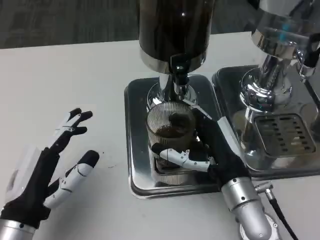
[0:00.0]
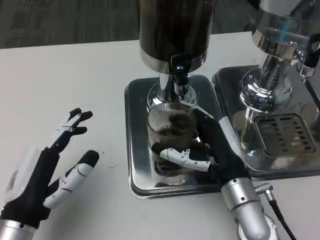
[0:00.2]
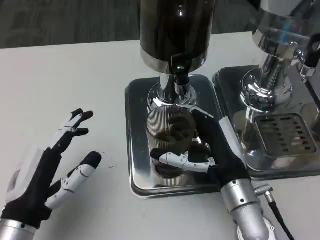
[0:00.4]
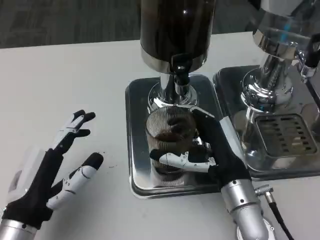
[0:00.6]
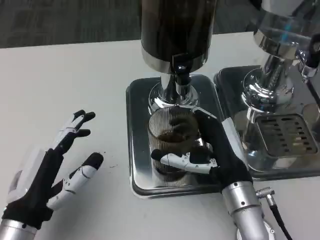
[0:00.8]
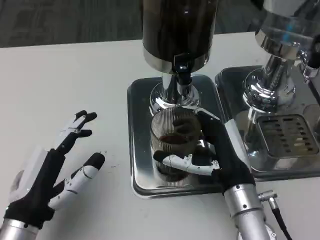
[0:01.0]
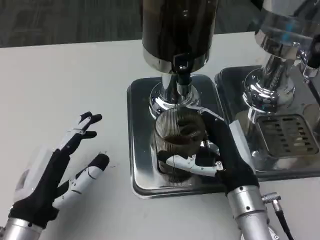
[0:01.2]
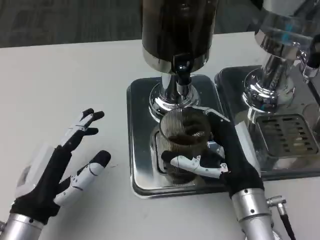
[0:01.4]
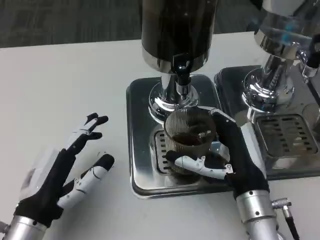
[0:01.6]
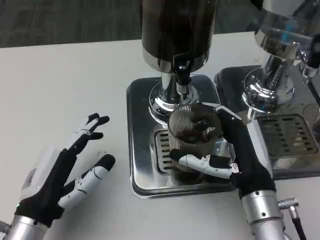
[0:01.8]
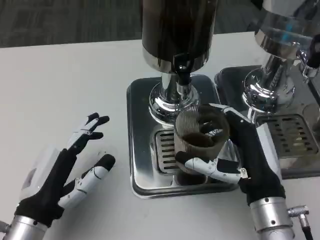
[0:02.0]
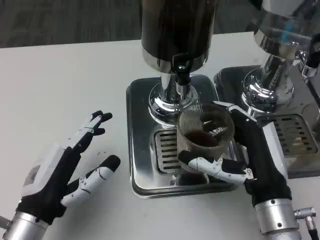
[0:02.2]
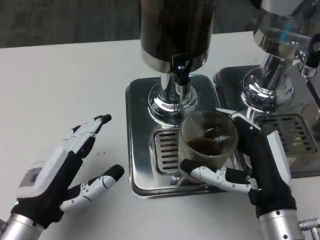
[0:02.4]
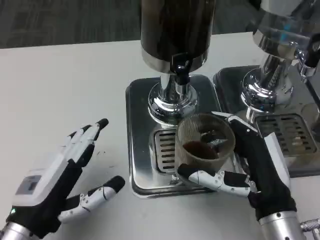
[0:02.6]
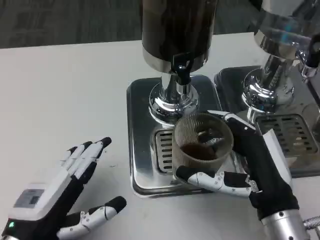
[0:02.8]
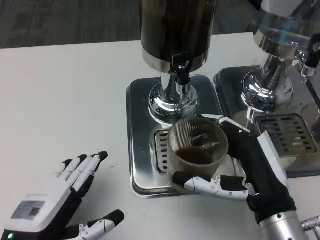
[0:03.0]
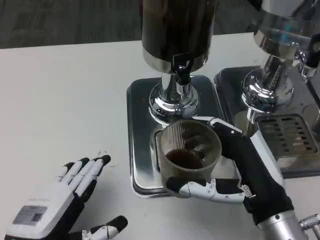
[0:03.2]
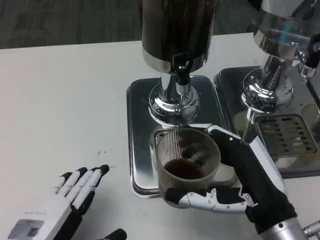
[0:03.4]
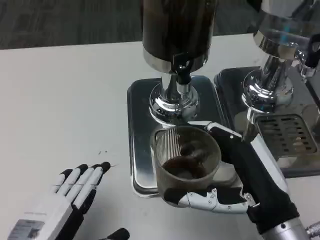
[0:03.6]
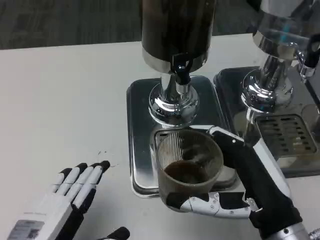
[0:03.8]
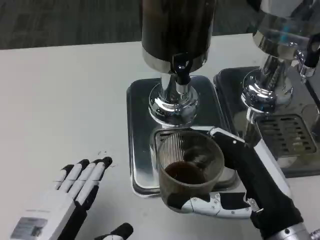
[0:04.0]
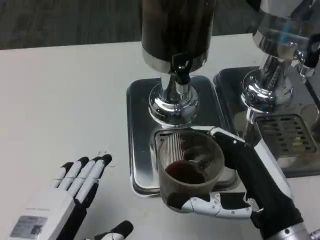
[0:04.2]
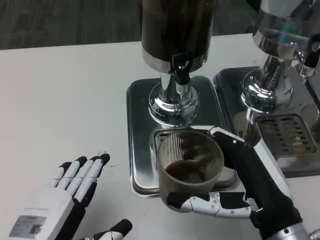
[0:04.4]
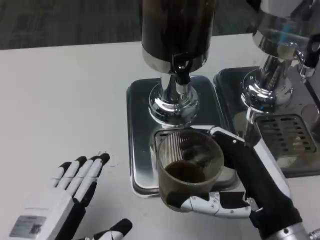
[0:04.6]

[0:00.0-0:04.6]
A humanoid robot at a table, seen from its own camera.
Task of the whole recording: Grasp the cup under the faucet to collect the drink, then remove the cup.
0:01.6 to 0:03.0: The right hand shifts by approximately 5 cm. Meanwhile the left hand ends up roughly 5 cm from where it was.

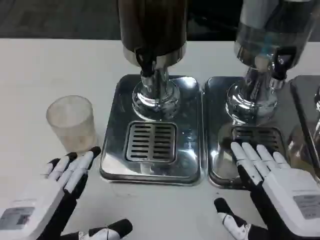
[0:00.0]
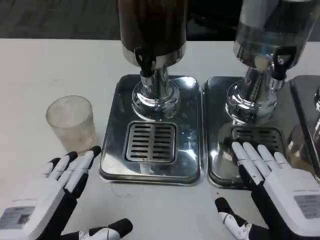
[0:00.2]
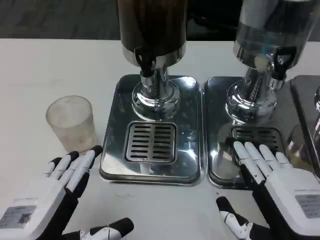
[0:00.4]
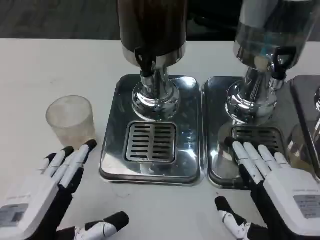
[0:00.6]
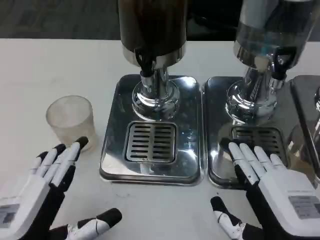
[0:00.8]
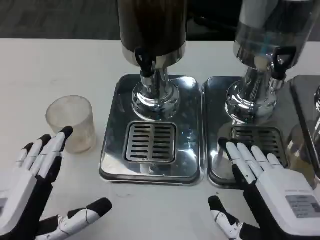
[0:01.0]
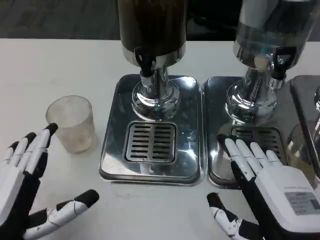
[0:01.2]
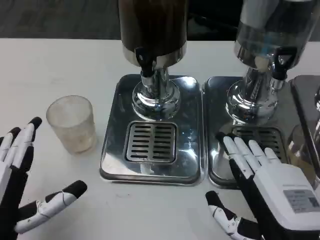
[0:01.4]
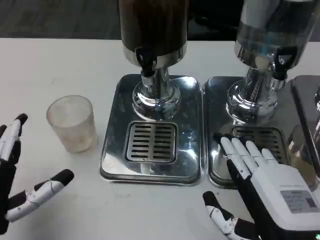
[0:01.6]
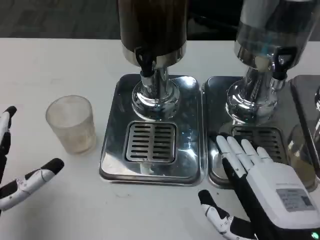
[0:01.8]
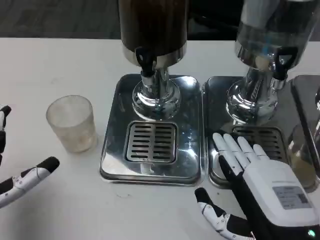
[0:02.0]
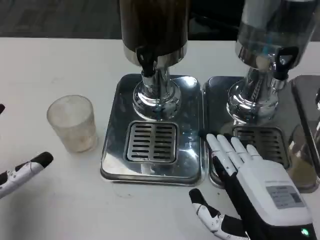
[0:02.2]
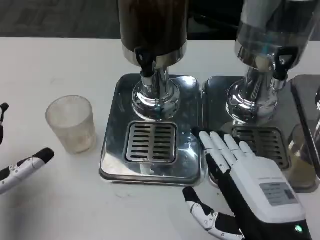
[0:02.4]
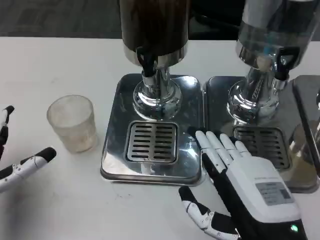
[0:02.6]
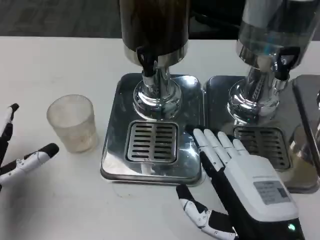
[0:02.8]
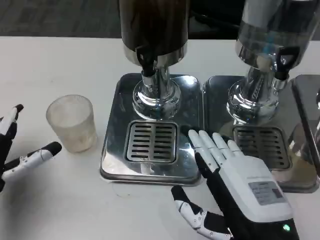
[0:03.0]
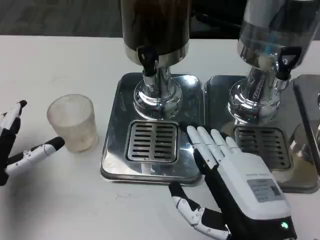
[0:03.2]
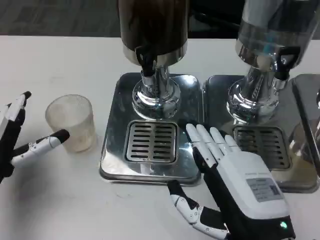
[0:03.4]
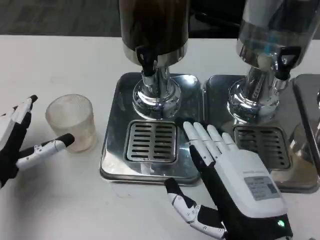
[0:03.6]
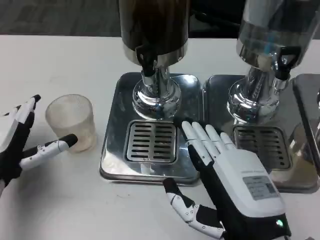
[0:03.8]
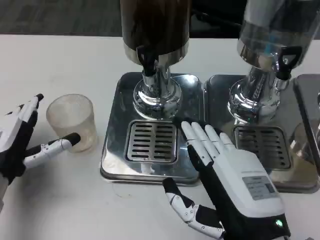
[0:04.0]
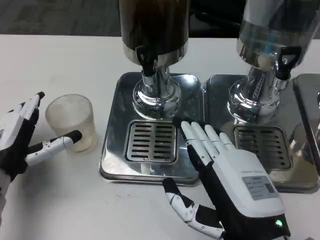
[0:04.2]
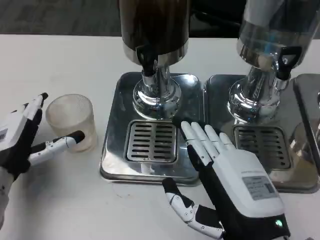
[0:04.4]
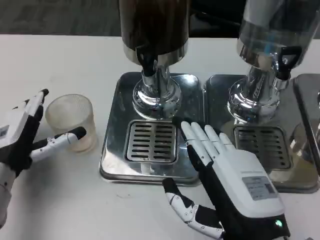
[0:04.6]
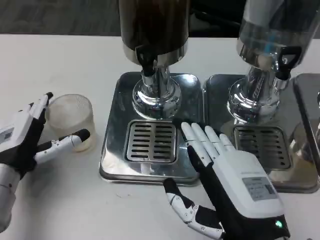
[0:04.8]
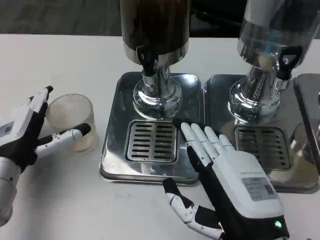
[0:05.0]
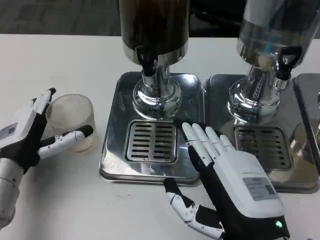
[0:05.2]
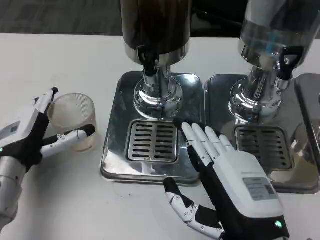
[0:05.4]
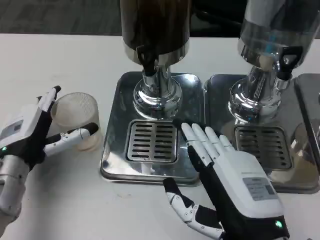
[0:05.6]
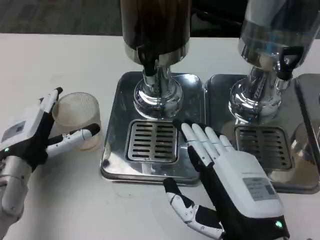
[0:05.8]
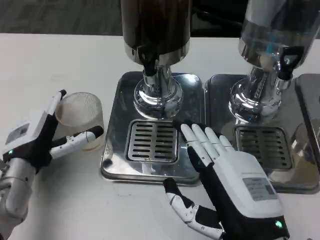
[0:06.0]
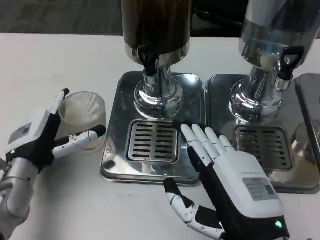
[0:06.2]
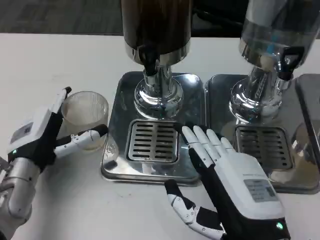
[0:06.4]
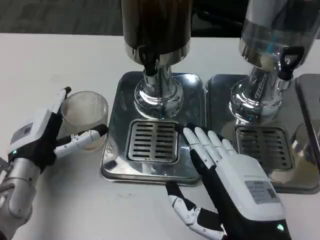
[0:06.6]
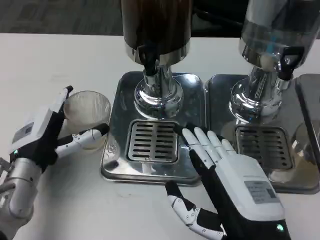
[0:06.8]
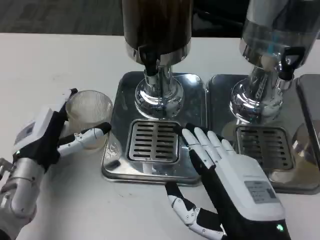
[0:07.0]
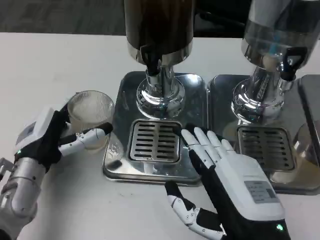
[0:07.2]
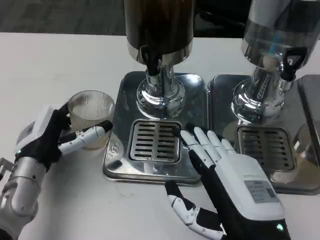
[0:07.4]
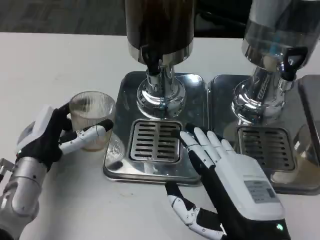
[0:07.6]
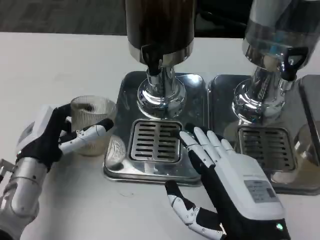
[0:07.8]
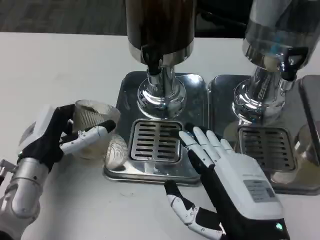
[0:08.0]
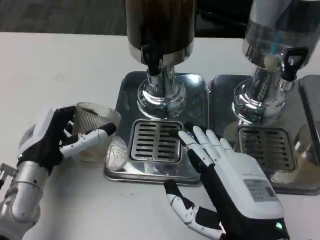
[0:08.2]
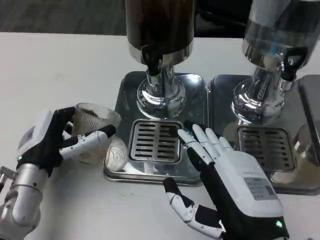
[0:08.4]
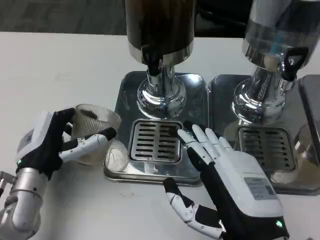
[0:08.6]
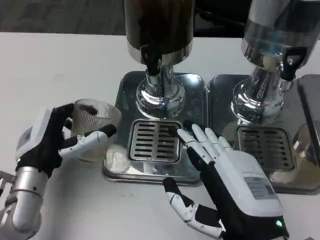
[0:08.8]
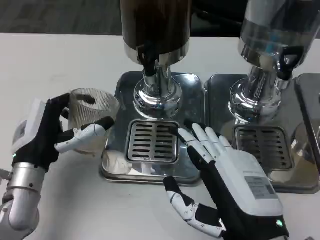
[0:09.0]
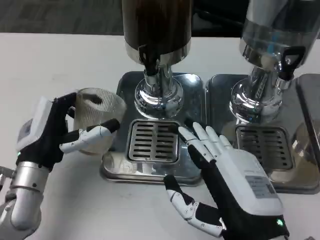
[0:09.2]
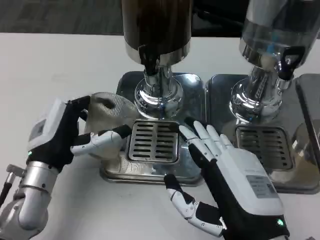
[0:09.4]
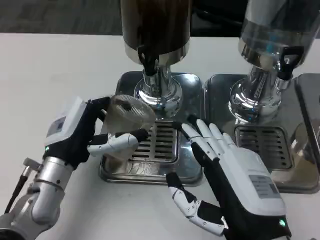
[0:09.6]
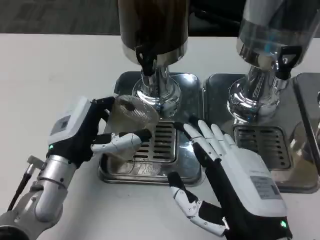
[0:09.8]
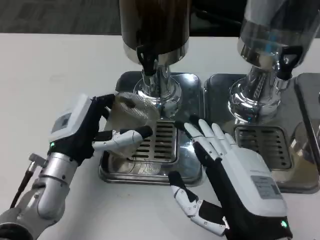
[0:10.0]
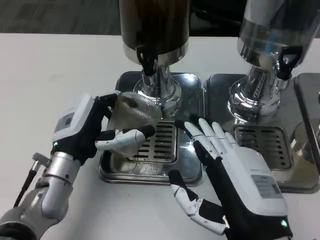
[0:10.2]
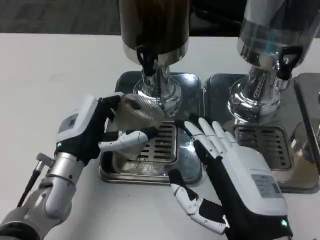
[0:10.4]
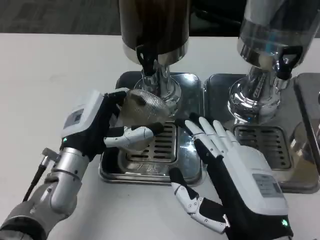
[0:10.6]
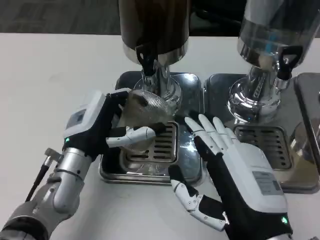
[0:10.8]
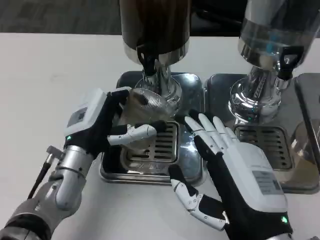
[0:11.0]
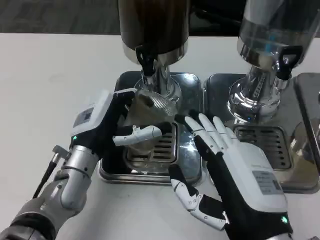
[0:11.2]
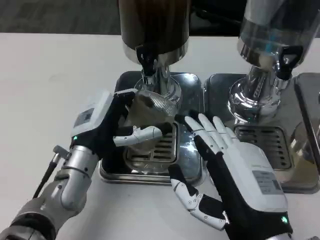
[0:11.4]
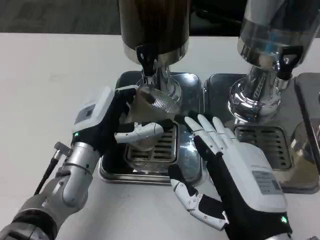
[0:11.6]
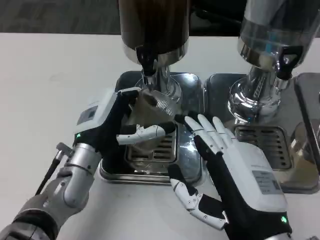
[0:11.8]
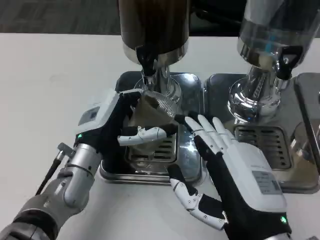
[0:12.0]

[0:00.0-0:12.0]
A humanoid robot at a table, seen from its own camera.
Task of the whole recording: Grasp the cup under the faucet to collect the drink, then remove the cup.
0:00.0 to 0:01.6: The left hand changes place by about 5 cm.
0:01.6 to 0:03.0: The left hand travels forward by about 10 cm.
0:03.0 to 0:04.4: The hands stay close to where they were, moving slightly.
0:04.4 to 0:06.0: There are only small adjustments of the hands.
0:10.4 to 0:12.0: The hands move only a little.

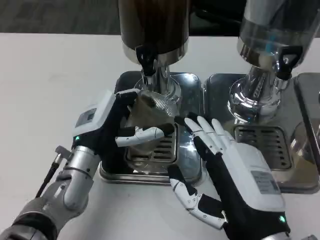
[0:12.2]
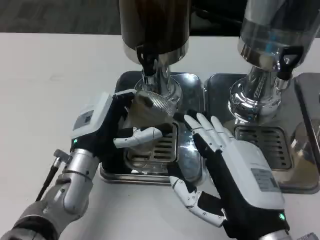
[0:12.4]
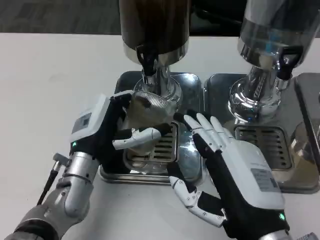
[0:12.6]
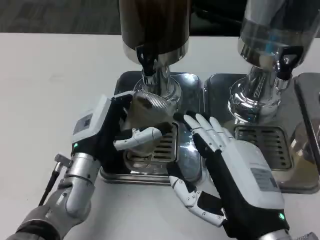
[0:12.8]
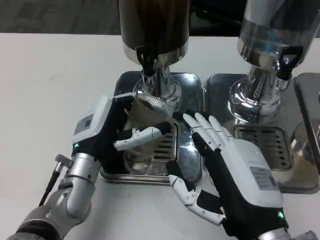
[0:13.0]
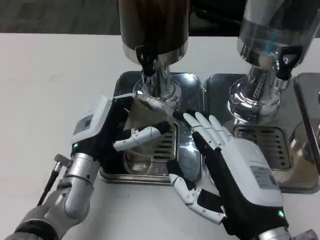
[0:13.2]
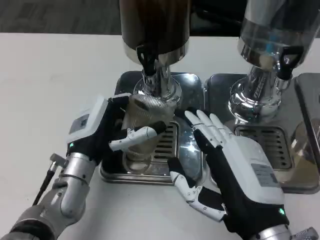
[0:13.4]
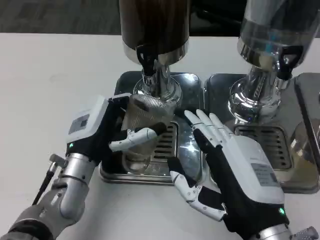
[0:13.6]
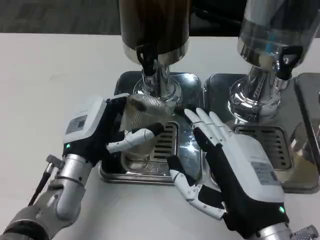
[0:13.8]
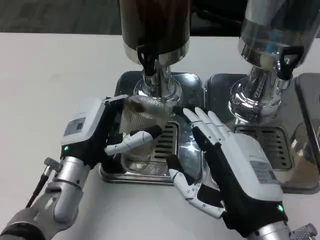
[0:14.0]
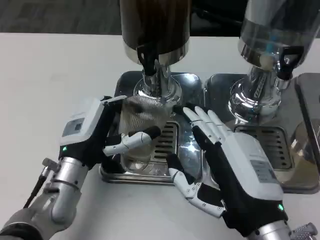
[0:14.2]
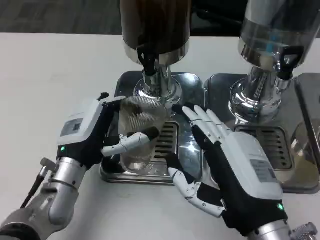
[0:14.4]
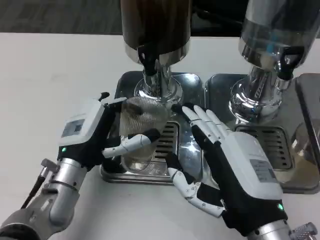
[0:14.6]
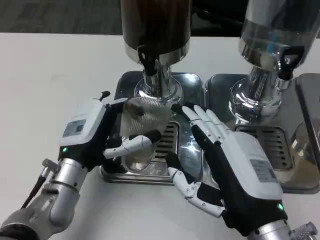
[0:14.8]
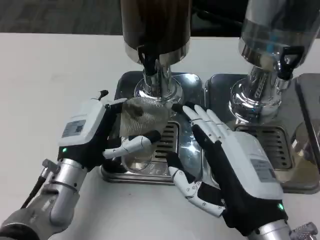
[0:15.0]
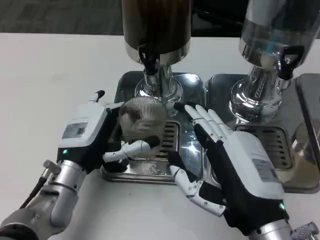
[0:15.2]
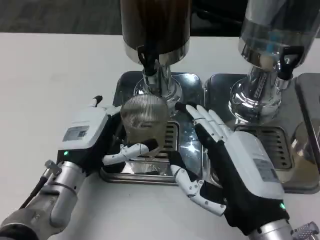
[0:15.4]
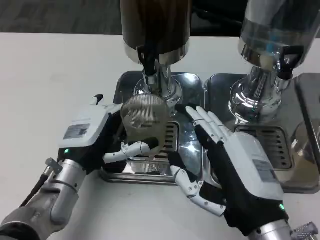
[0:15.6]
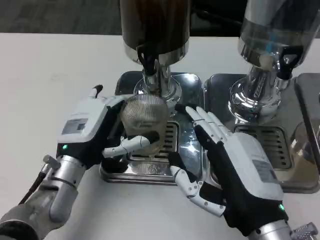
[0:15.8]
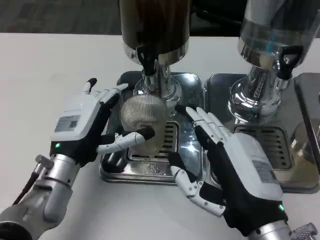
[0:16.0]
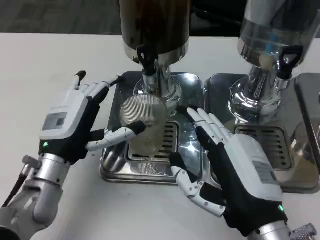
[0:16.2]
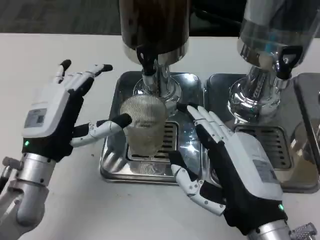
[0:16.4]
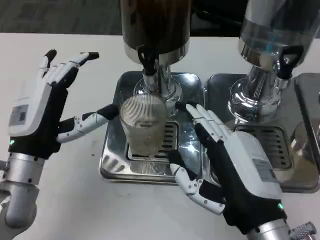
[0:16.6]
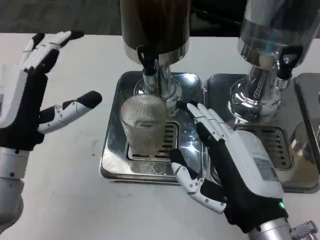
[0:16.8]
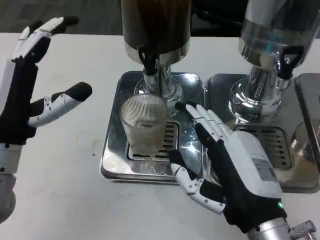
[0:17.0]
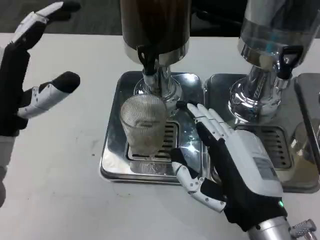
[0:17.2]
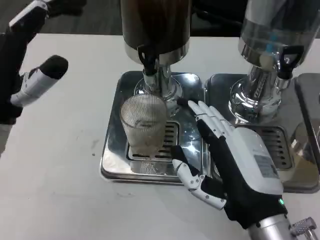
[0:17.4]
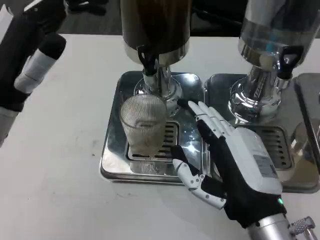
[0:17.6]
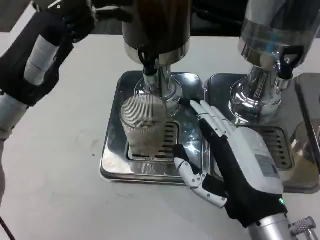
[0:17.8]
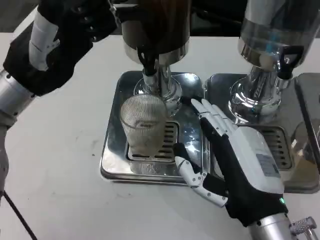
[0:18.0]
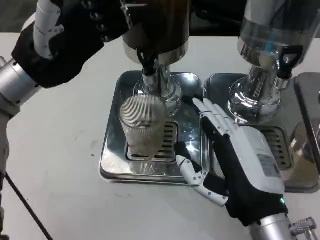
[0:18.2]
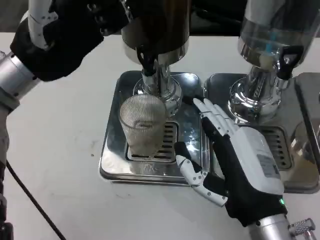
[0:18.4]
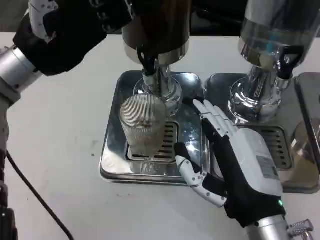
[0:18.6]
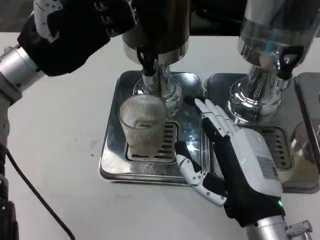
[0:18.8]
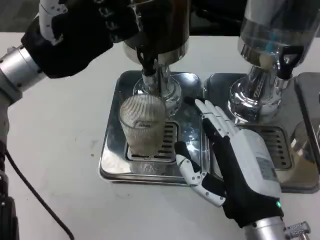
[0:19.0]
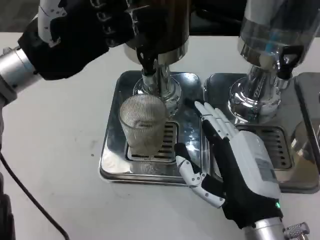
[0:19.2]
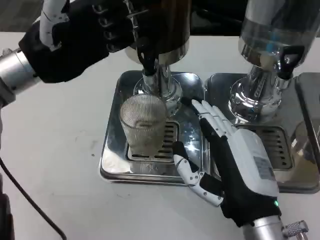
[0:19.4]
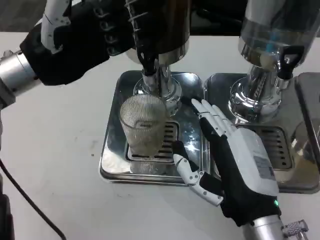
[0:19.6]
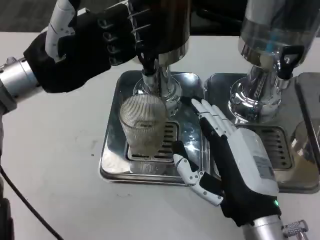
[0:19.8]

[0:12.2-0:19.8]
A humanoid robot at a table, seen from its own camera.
Task of the whole recording: Grasp the cup under the faucet to collect the drink, then remove the cup.
0:12.2 to 0:15.2: The hands stay close to where they were, moving slightly.
0:15.2 to 0:16.8: The left hand goes approximately 10 cm upward and to the left.
0:16.8 to 0:18.2: The left hand goes roughly 15 cm upward and forward.
0:18.2 to 0:19.8: The hands stay close to where they were, moving slightly.
